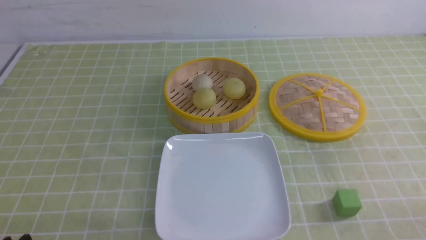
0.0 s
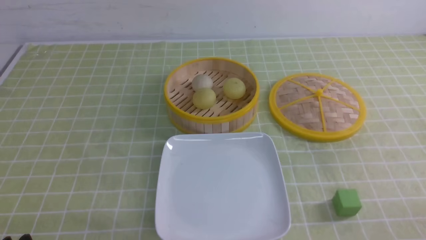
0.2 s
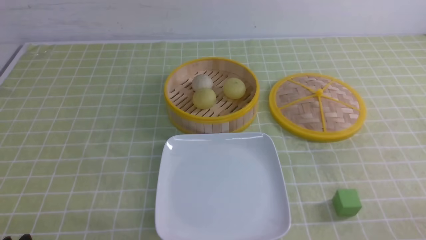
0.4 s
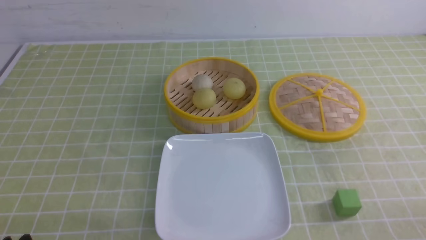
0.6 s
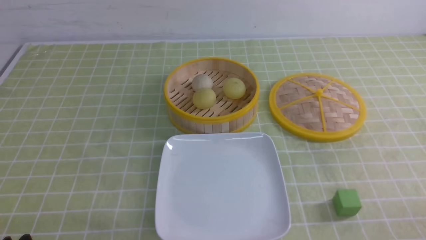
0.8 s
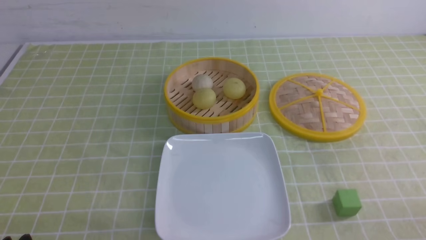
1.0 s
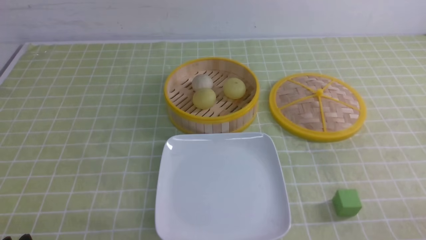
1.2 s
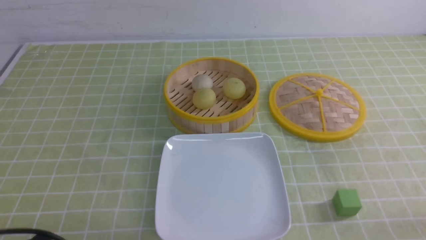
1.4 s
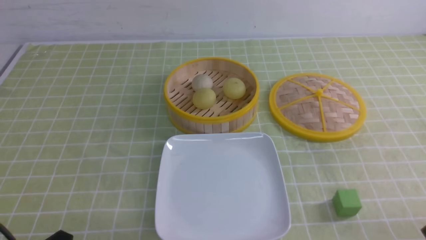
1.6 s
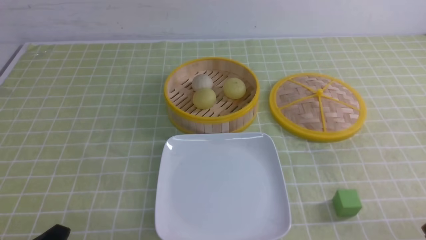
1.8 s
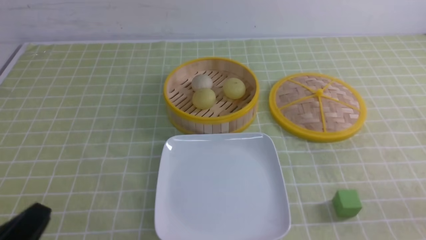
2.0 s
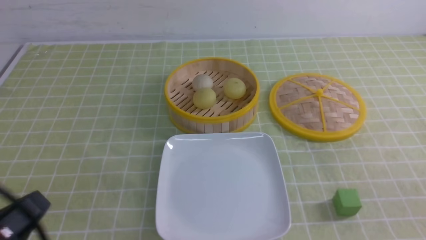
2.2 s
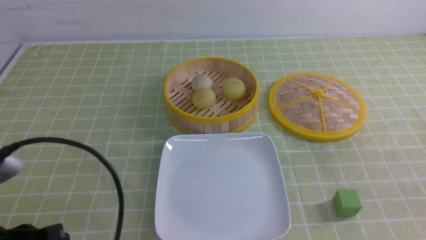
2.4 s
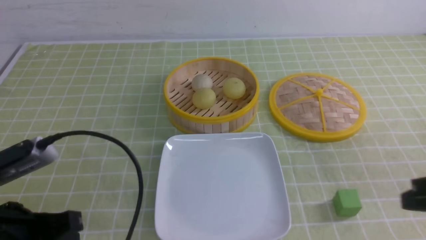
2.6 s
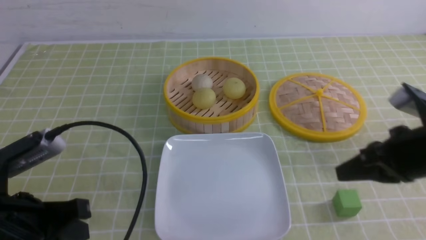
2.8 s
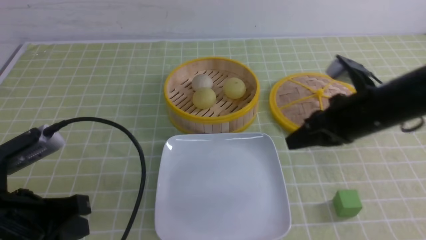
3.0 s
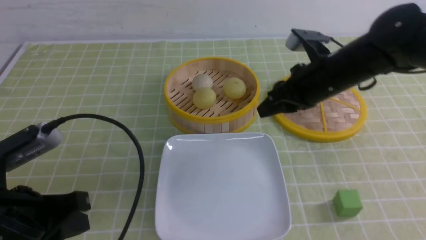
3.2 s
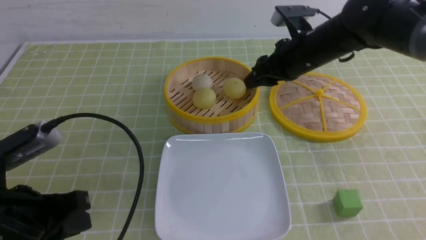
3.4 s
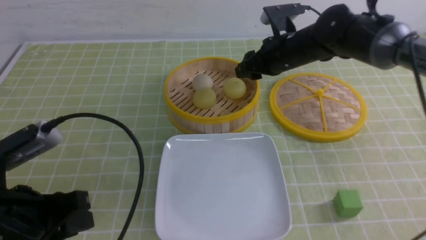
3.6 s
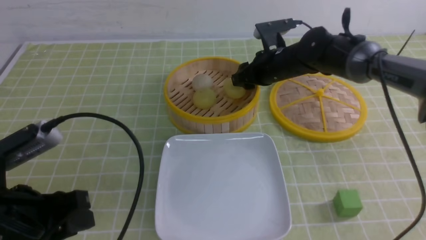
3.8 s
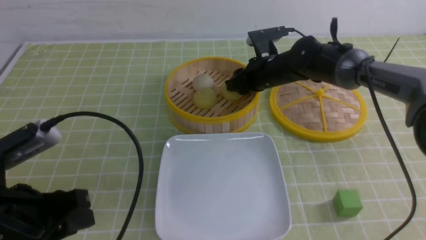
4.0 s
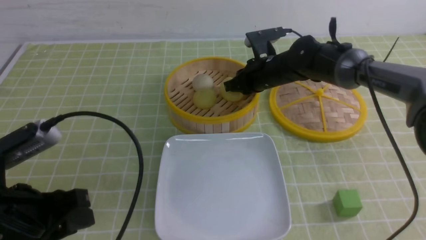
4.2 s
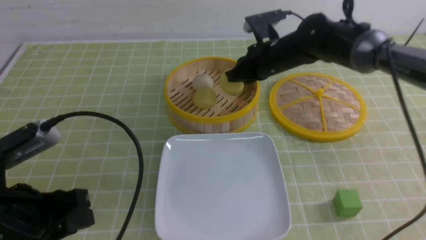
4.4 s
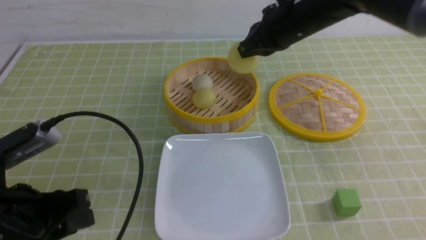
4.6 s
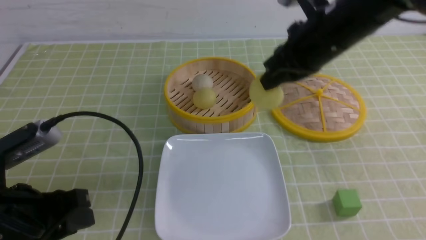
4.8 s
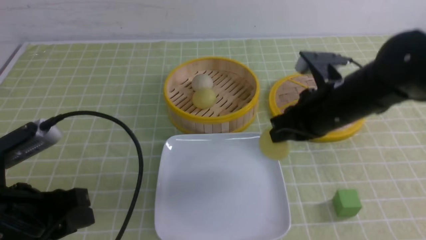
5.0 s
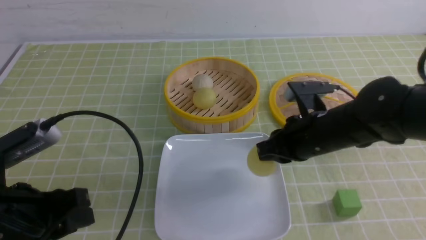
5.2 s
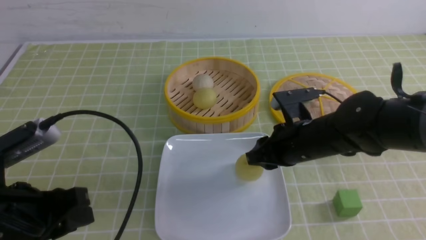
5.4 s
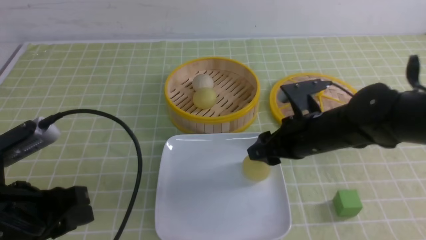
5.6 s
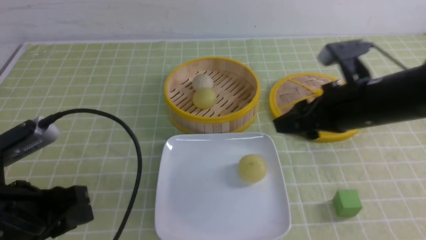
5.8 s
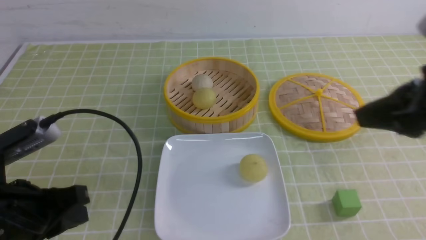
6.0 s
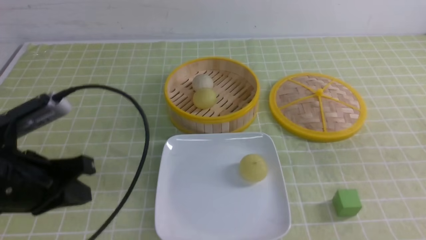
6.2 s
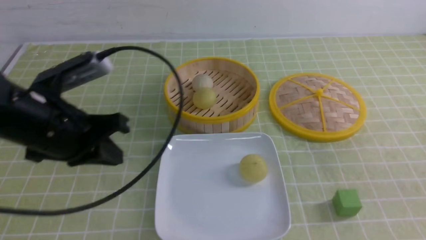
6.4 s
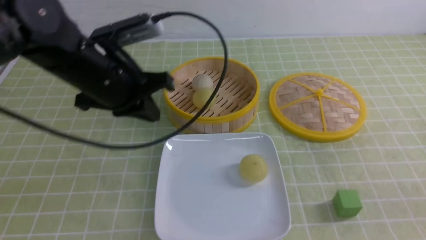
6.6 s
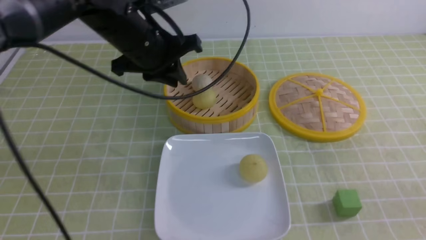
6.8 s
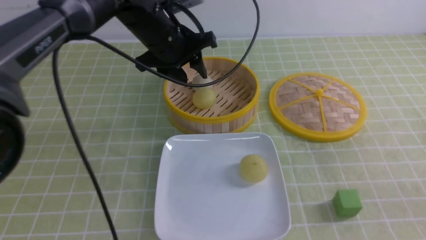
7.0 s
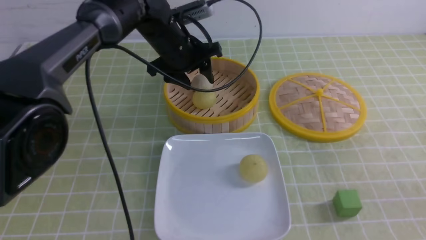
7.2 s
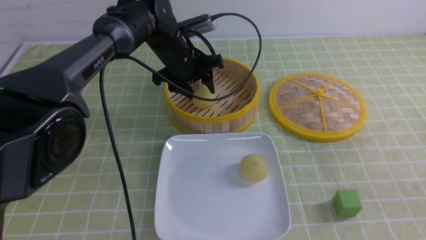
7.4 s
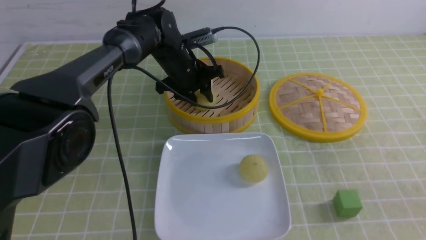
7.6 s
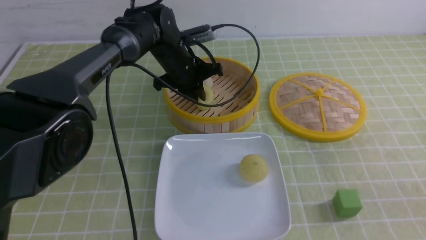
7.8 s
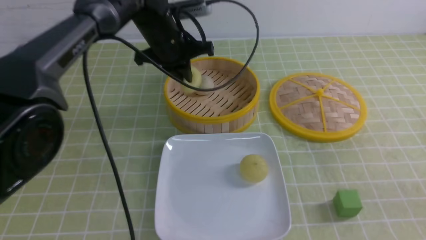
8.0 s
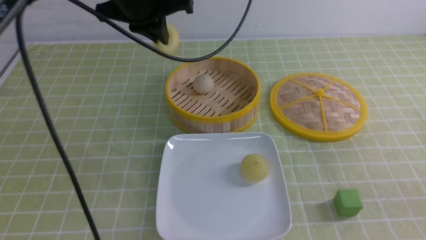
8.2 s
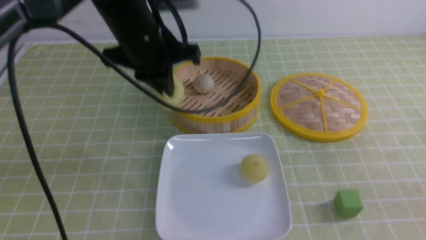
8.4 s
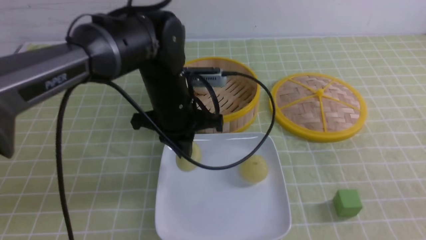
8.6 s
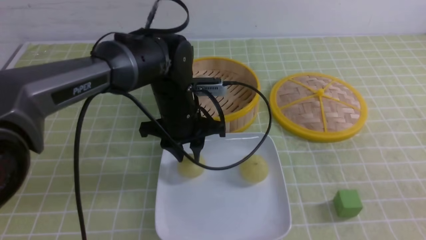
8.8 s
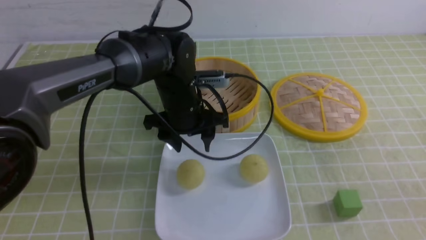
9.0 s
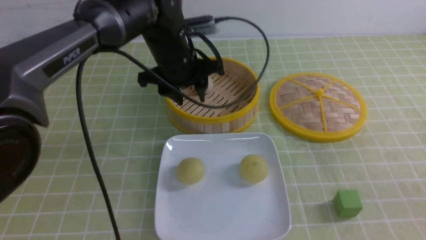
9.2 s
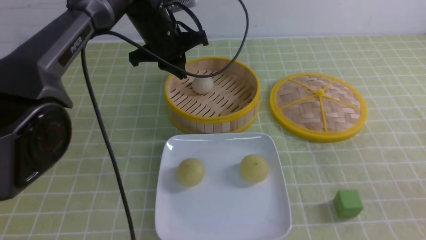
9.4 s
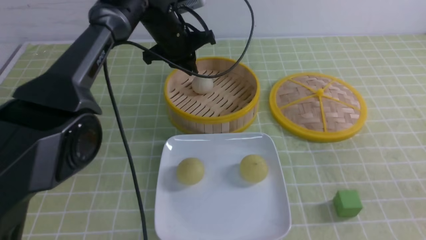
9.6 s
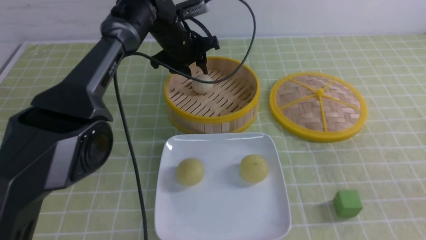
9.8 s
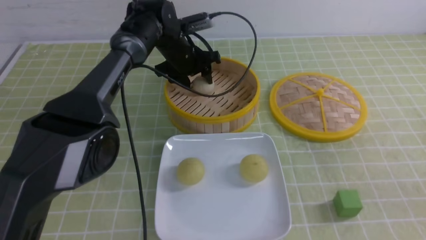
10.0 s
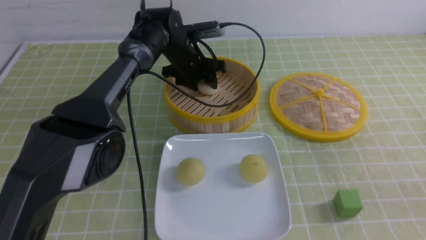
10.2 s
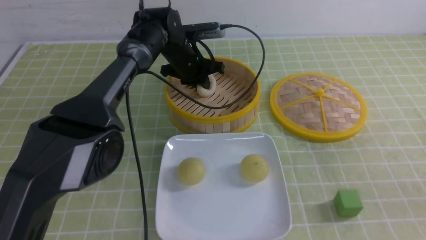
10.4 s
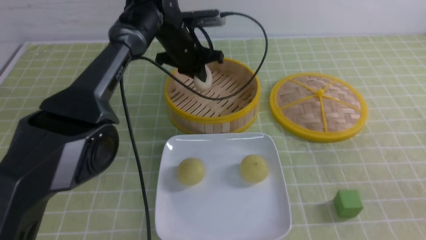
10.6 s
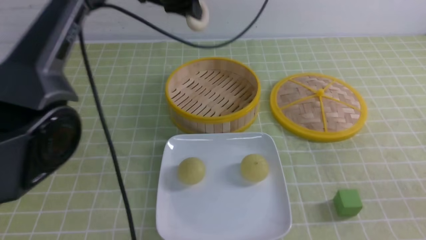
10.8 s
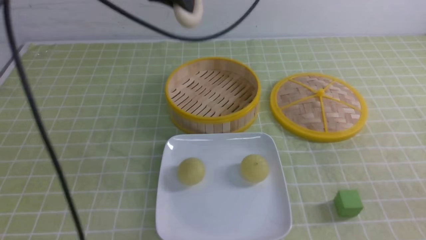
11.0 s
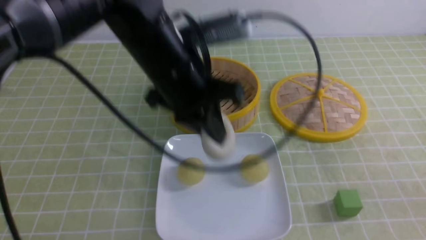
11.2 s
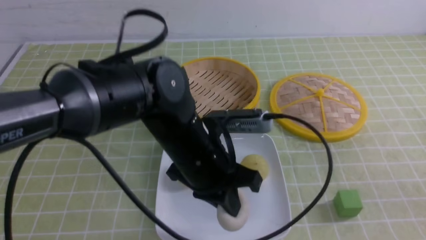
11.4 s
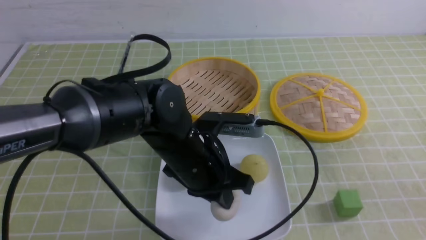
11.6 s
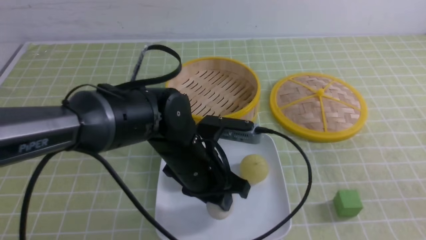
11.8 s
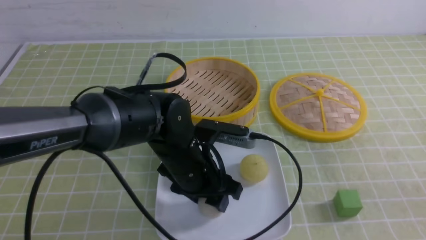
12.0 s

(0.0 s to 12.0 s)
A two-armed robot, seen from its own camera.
Step, 0.0 s - 4.0 s: use the right arm to grab the steamed stuffed bun that is closest to it.
Step, 4.2 s - 5.4 s: use the right arm to put the steamed stuffed bun into the plate.
Step, 5.6 s - 7.8 s: use the left arm to grab the steamed stuffed bun that is closest to it.
Step, 8.0 s - 8.8 s: use the left arm to put the steamed stuffed bun into the plate.
Step, 9.0 s - 10.2 s: use the left arm to grab the steamed stuffed bun that is closest to it.
Step, 10.4 s - 11.8 s: use the left arm to put the steamed stuffed bun into the plate.
1.6 s - 3.0 s: The left gripper goes about 10 cm forward and upward, and closes its fingers, while the right gripper shifts approximately 25 cm forward and to the left, and closes up.
3.0 s - 4.4 s: The right gripper shifts about 15 cm forward and to the left, and opens, then closes again, while the left gripper opens its fingers.
4.4 s - 6.0 s: The right gripper heads backward and to the right, covering about 30 cm, and opens up.
6.0 s - 7.6 s: The left gripper goes roughly 35 cm forward and to the right, and opens and closes again; the right gripper is displaced backward and downward by about 10 cm, and closes.
7.6 s - 9.0 s: The left gripper is displaced backward by approximately 10 cm, and closes, then reopens.
9.0 s - 10.4 s: The left gripper is displaced forward by roughly 15 cm, and closes.
10.4 s - 12.0 s: The left gripper heads backward, covering roughly 25 cm, and opens.

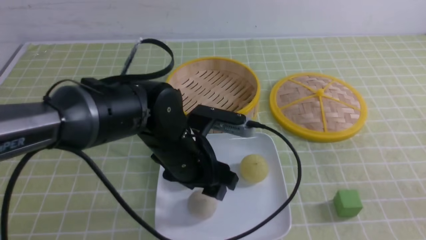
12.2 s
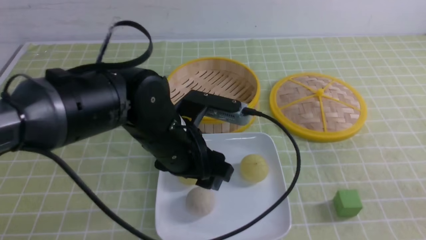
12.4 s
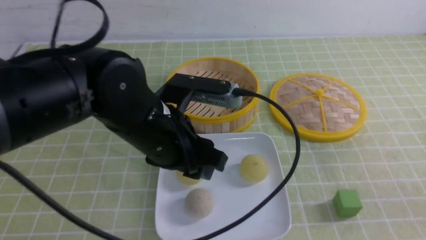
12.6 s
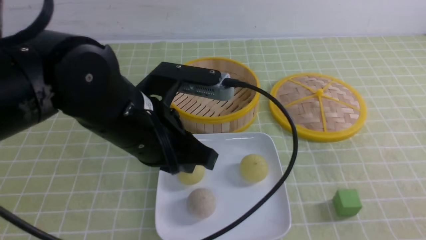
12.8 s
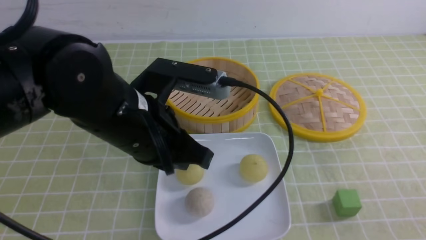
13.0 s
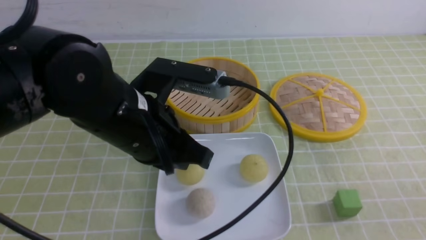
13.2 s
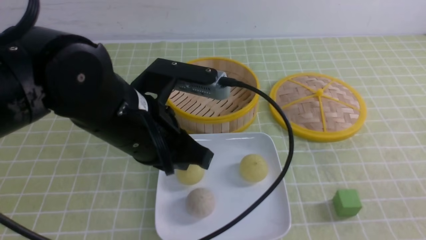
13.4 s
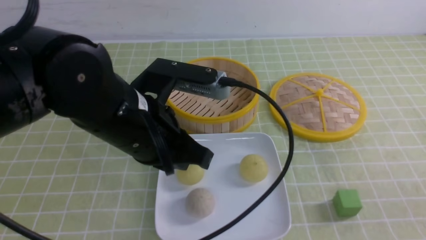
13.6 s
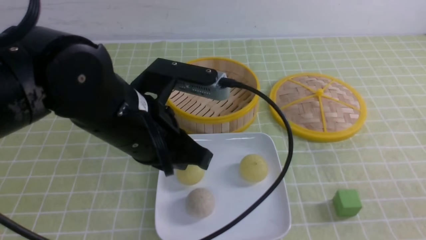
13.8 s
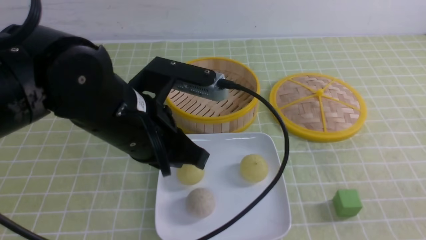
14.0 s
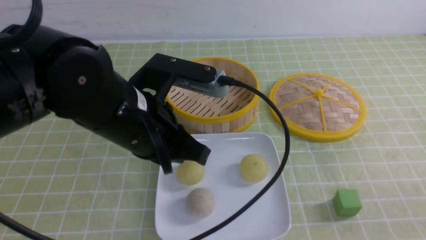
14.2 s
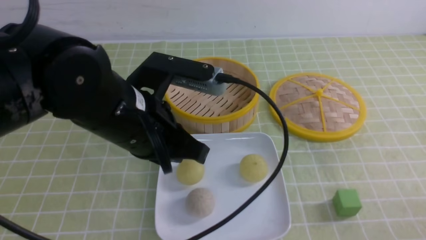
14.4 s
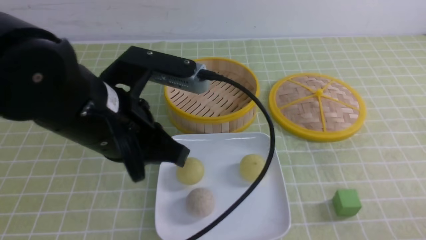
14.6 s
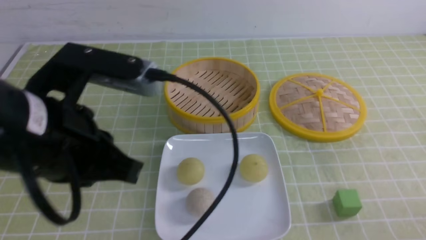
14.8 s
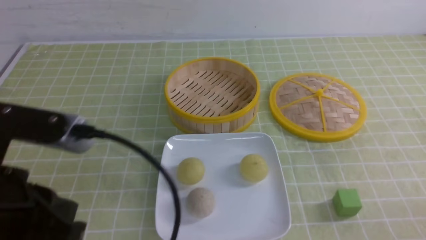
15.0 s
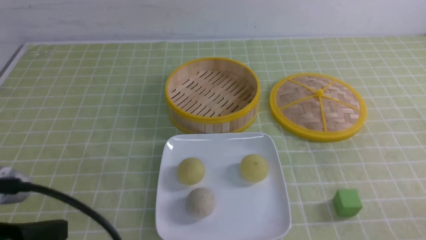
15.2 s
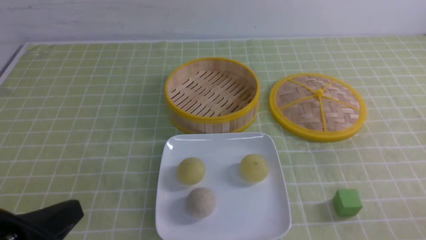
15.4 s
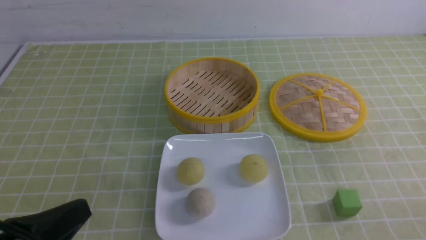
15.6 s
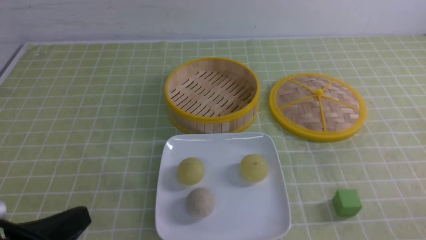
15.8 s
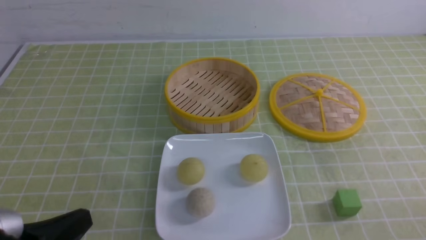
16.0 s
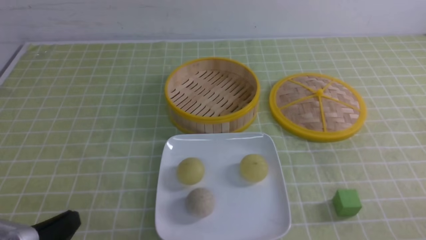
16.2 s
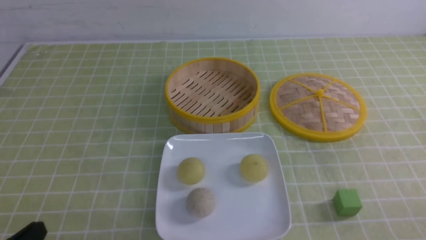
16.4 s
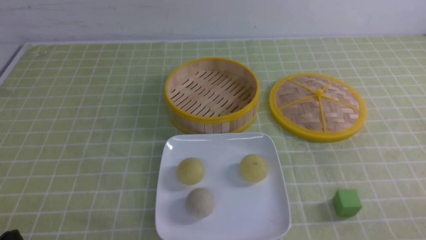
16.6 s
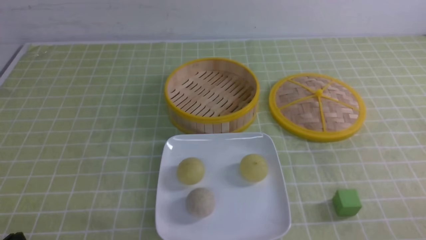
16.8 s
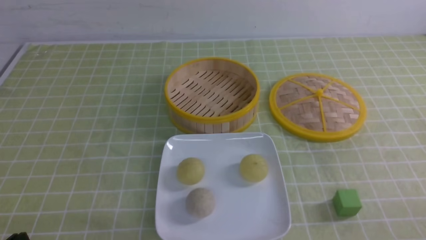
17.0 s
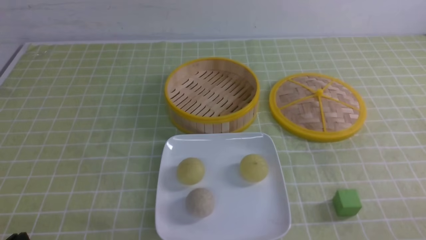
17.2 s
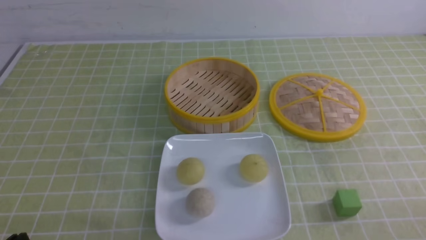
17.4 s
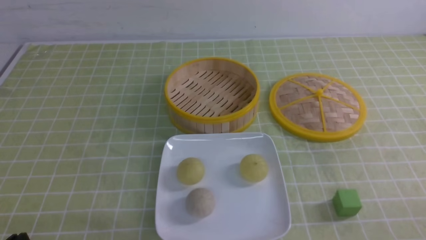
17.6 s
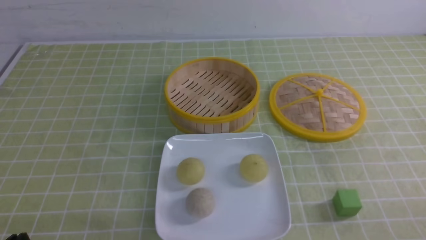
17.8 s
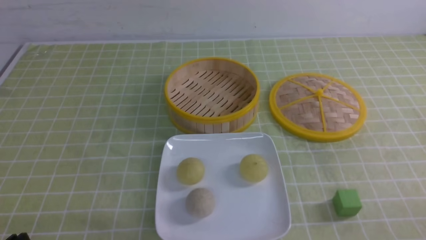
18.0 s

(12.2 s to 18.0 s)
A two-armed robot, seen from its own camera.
12.2 s - 13.6 s: The right gripper shifts by roughly 5 cm; the left gripper is displaced upward by some 10 cm, and closes up.
13.6 s - 15.0 s: The right gripper moves downward, roughly 10 cm; the left gripper moves backward and to the left, about 15 cm.
15.0 s - 16.6 s: The left gripper moves downward and to the left, some 15 cm.
16.6 s - 18.0 s: Both grippers stay about where they are.
